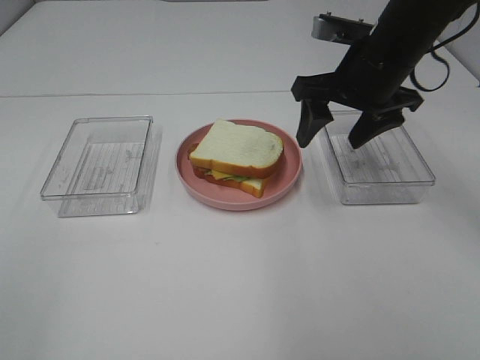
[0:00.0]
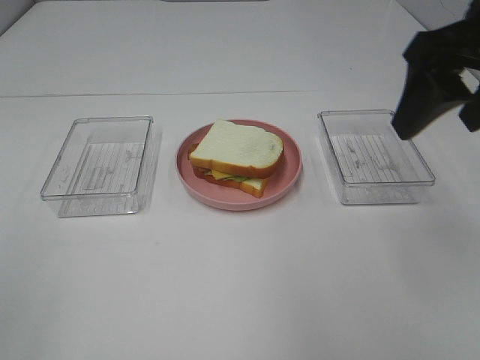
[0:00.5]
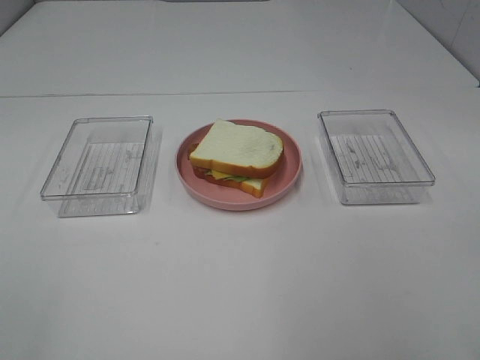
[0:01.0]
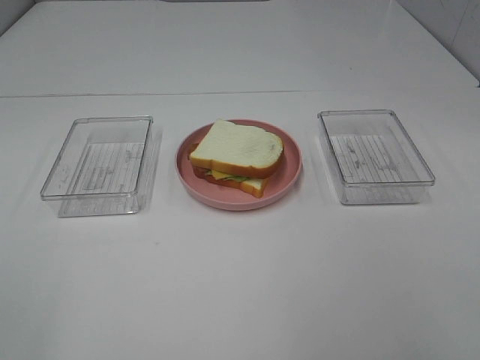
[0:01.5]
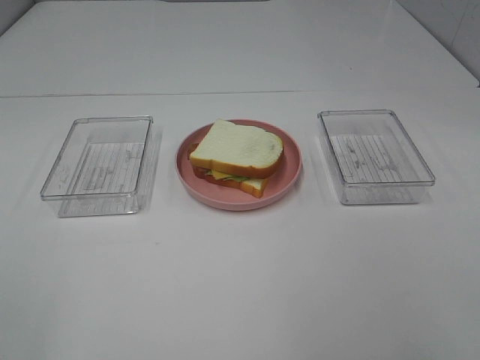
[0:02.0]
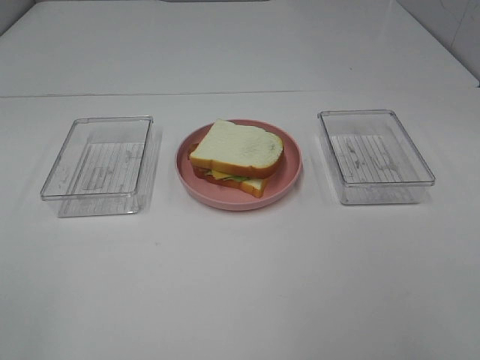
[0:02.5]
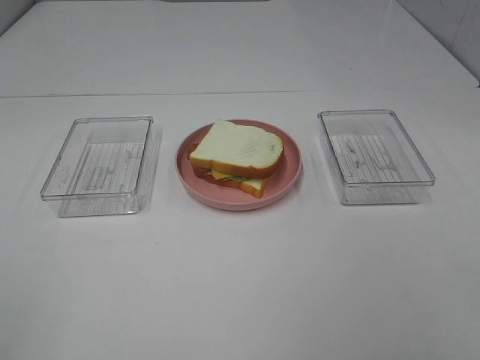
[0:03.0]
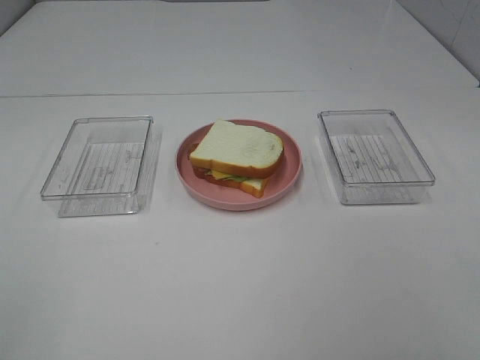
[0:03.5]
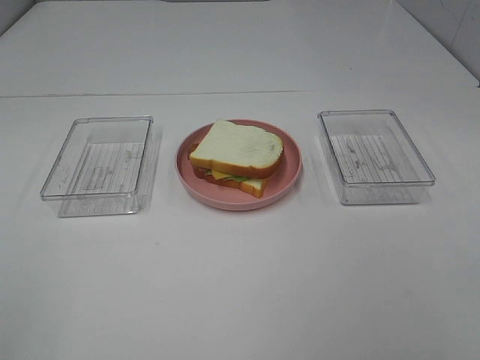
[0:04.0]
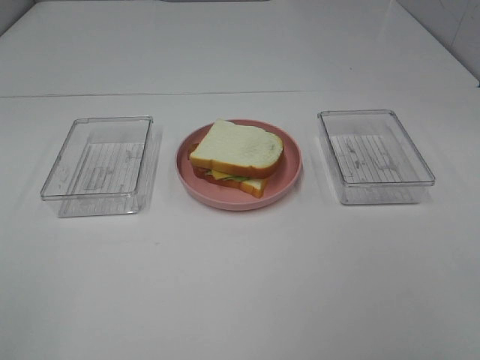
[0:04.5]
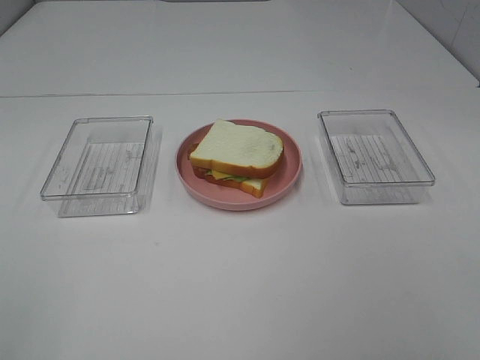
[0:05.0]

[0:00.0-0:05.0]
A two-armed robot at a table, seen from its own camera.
Task of the whole recording: Make sandwiches.
0:00.0 to 0:02.5: The right gripper moves backward, some 35 cm.

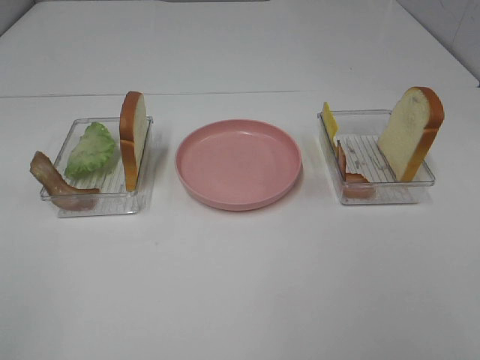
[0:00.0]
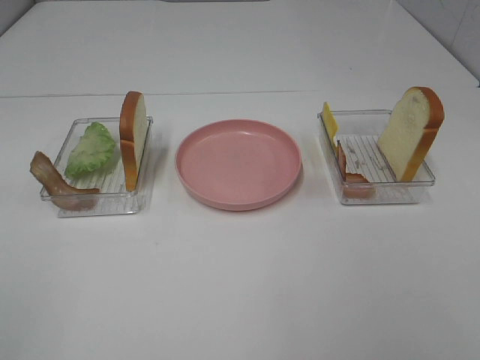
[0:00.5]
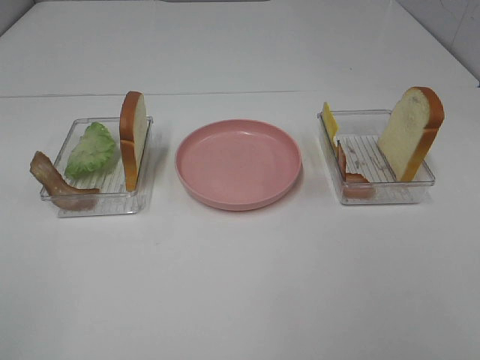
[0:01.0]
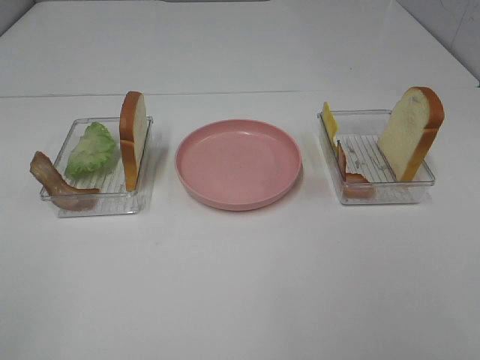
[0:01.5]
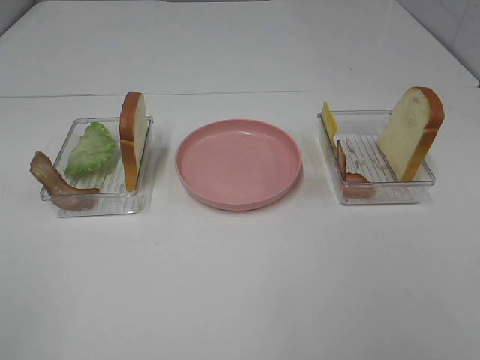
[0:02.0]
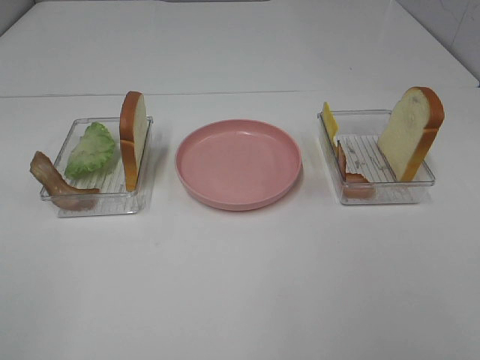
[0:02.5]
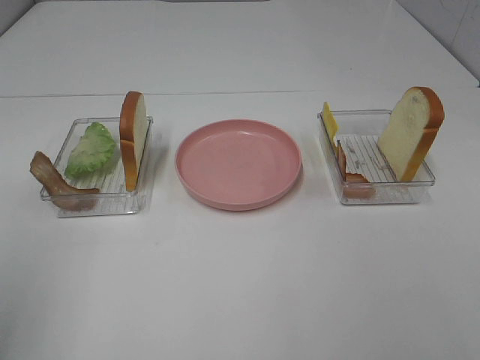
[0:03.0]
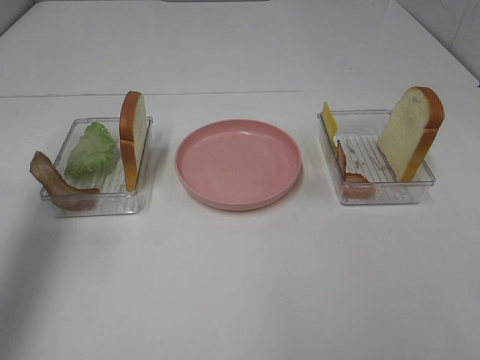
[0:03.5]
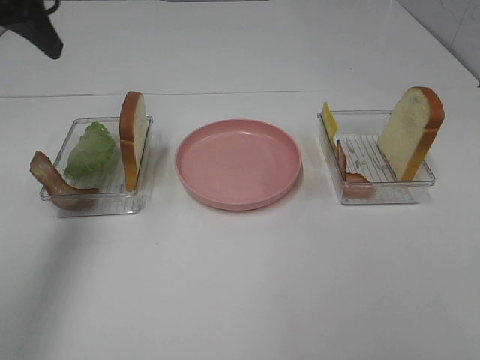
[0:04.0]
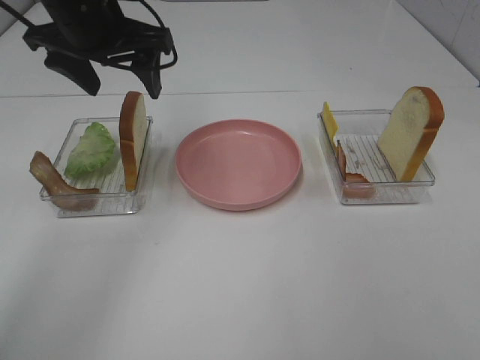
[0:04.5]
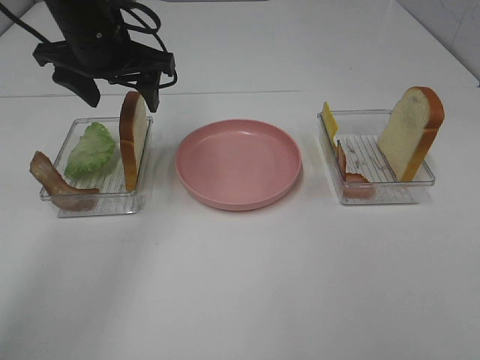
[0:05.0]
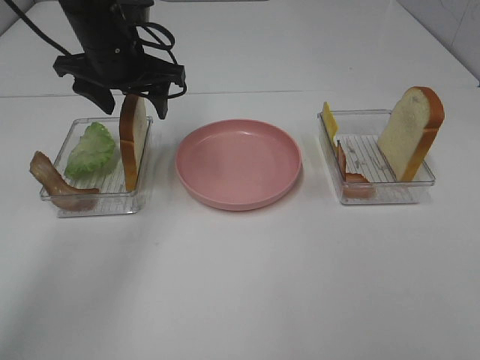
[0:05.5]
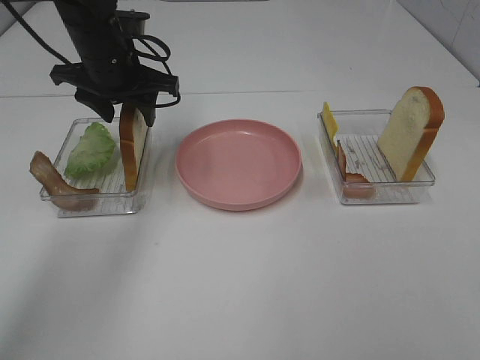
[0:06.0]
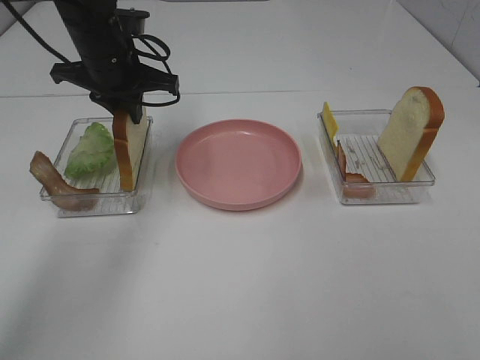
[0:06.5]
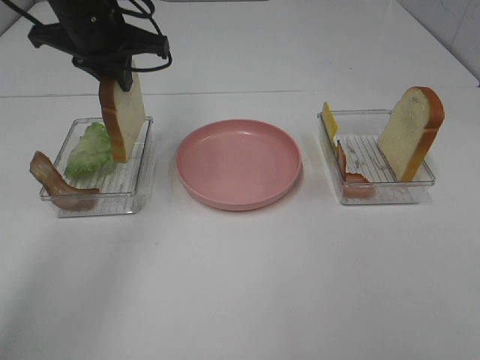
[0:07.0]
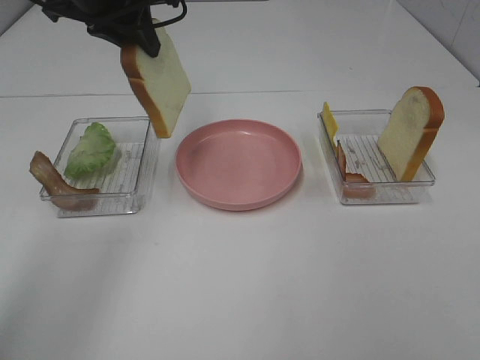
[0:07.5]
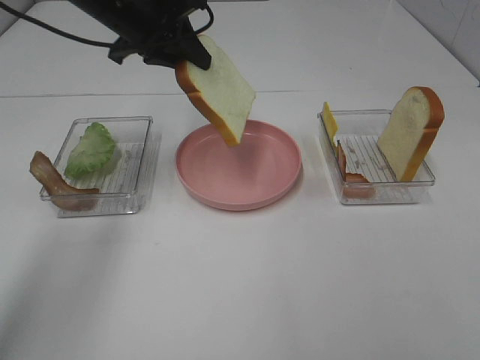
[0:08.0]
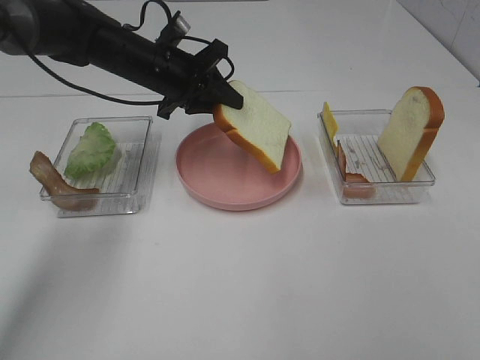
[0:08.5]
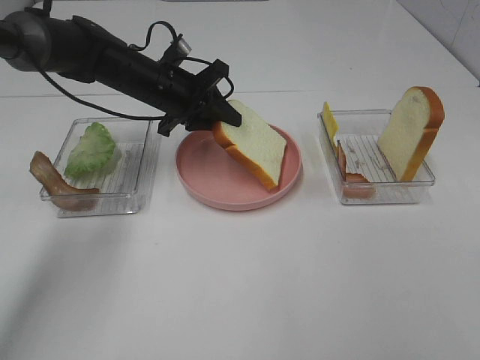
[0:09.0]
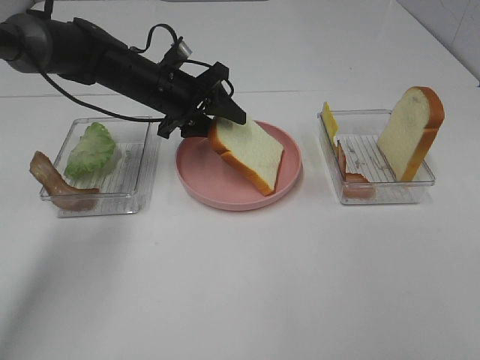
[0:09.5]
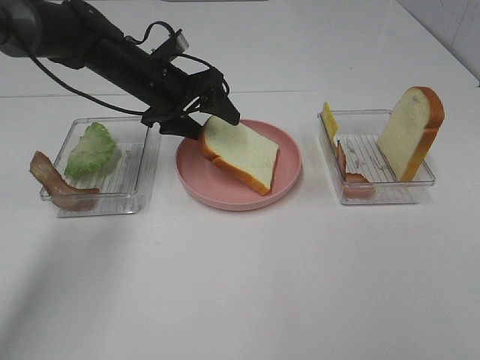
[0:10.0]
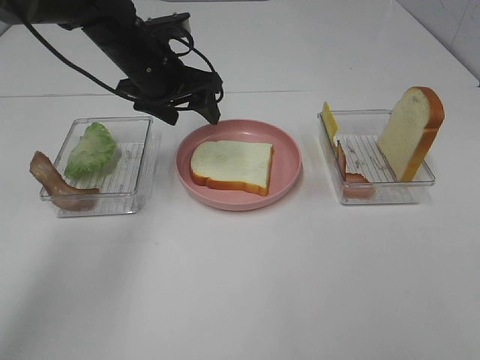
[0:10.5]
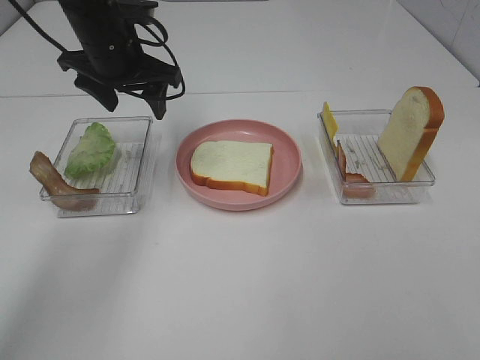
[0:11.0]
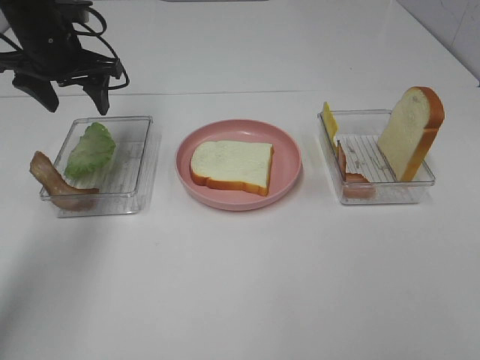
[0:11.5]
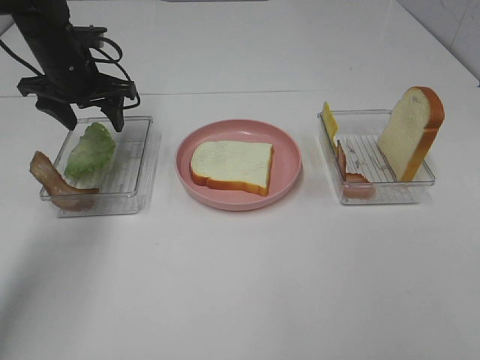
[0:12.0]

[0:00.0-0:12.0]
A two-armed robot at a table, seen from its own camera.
Task of the whole recording: Make sandwiches.
Step, 0:00.0 to 0:06.5: Left hand:grab the bread slice.
Step, 0:07.0 to 0:10.5: Left hand:place the bread slice on the plate.
0:00.0 to 0:02.0: Neither gripper changes place.
0:02.0 to 0:04.0: The left gripper is displaced forward by roughly 35 cm.
0:04.0 to 0:06.0: The left gripper moves downward, forward and to the right, about 20 cm.
0:06.0 to 0:08.0: The left gripper closes up.
0:08.0 to 0:10.0: The left gripper goes about 10 cm downward, and opens its fingers.
0:10.0 to 0:12.0: The left gripper is displaced to the left by approximately 10 cm.

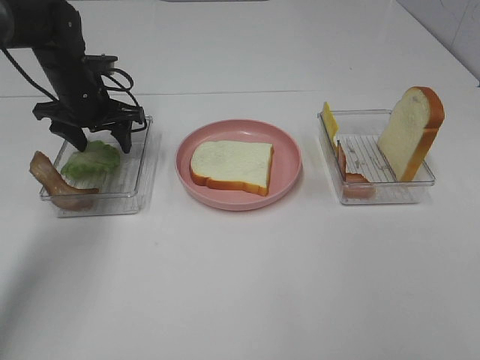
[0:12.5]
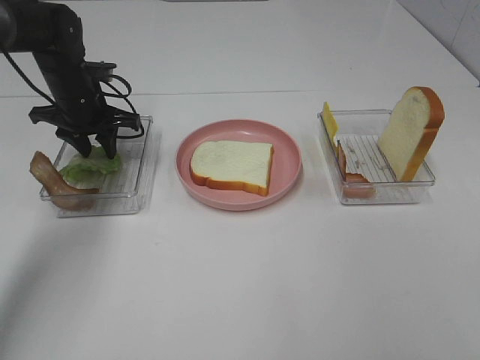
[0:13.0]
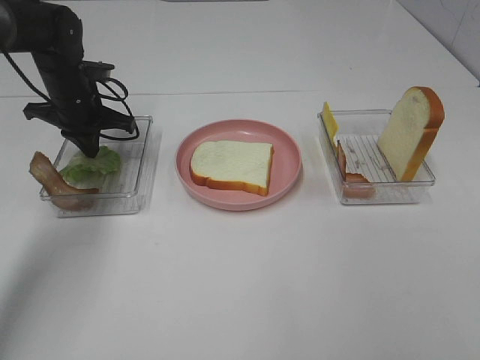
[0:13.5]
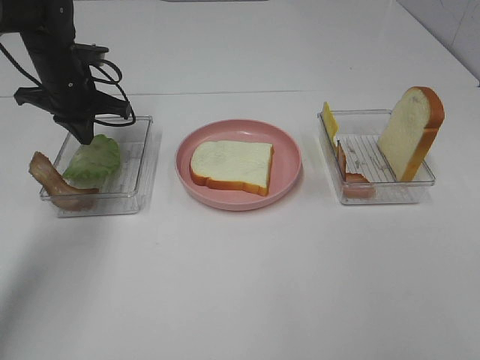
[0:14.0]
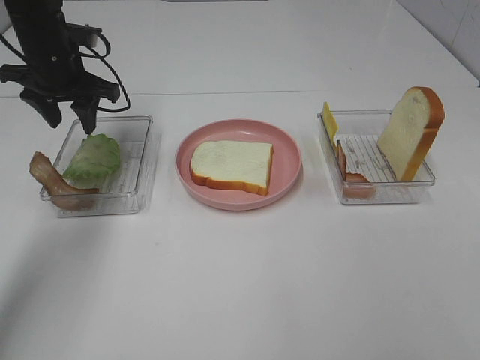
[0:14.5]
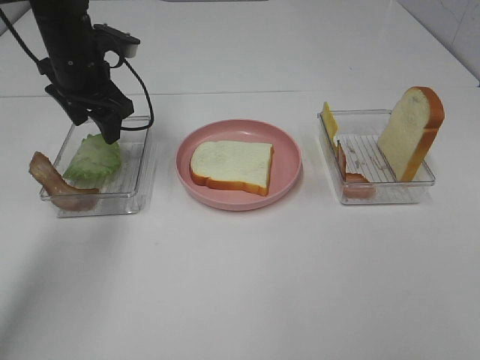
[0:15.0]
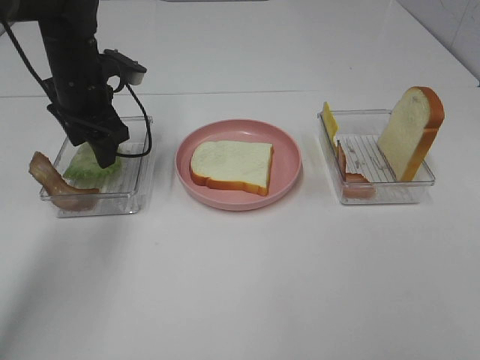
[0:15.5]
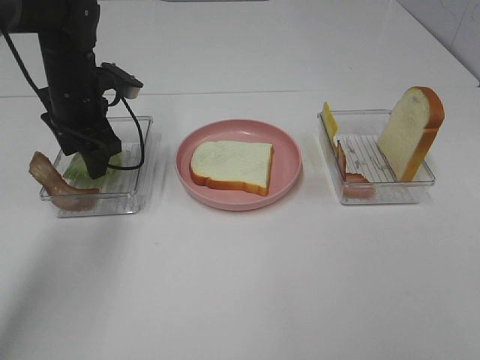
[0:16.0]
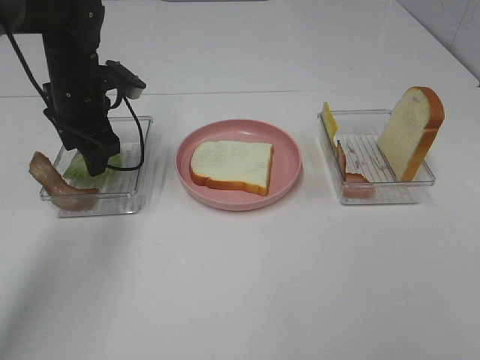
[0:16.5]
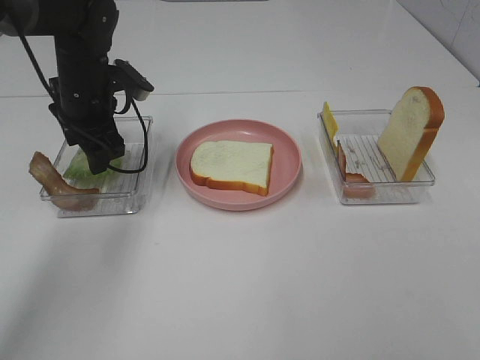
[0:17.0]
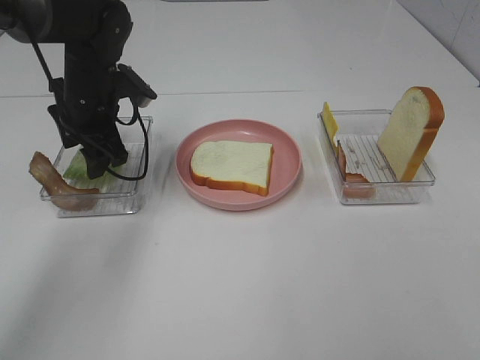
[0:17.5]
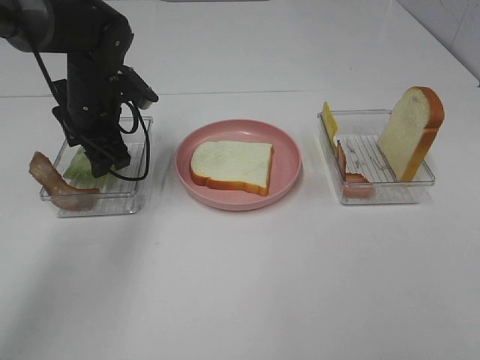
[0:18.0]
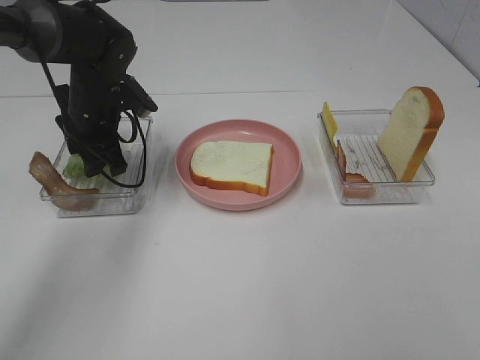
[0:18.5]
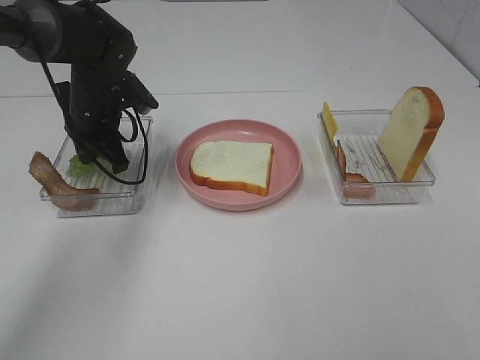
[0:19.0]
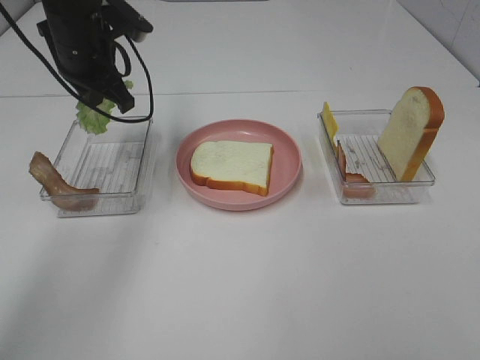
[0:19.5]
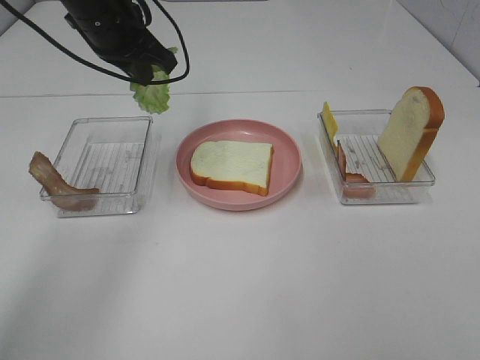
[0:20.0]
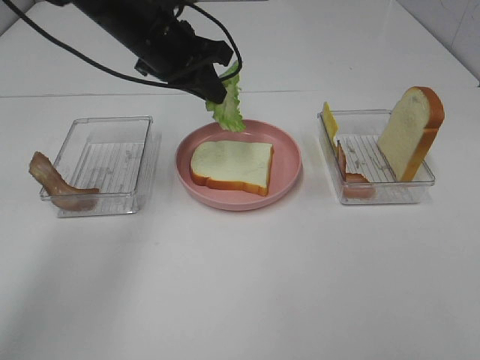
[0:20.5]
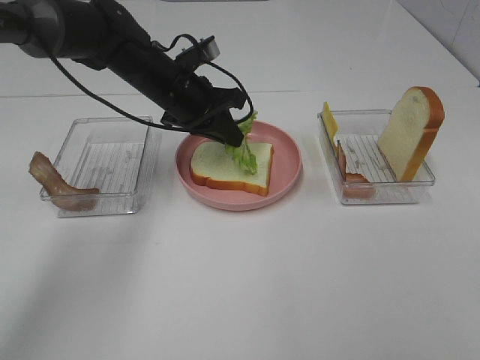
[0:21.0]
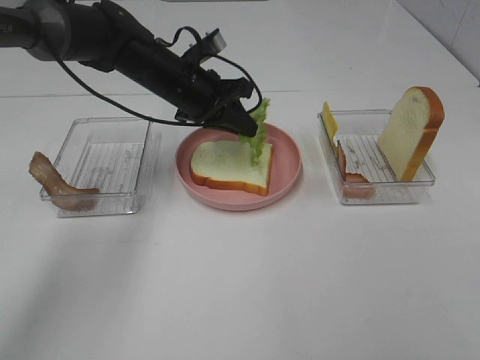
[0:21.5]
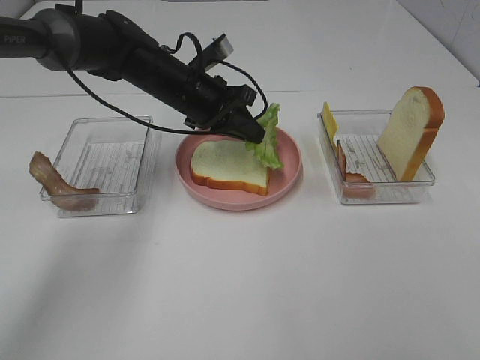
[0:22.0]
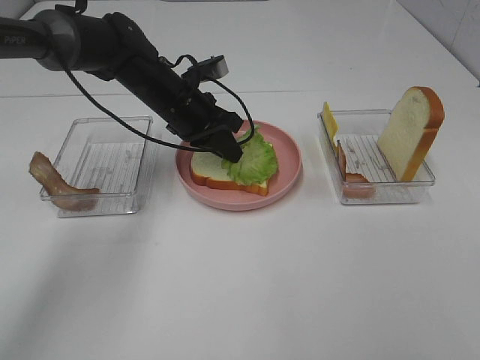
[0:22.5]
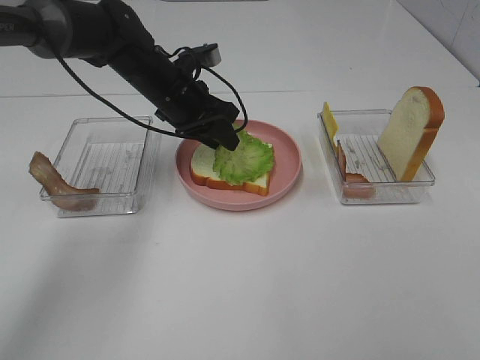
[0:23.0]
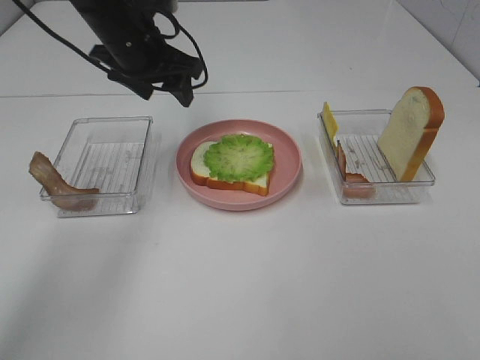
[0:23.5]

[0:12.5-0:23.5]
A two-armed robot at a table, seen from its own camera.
Task of the whole recording: Make sandwiches.
Step, 0:12.5 to 0:19.0: Left hand:grab the lettuce slice.
Step, 0:19.5 to 0:23.0: Left hand:place the lettuce slice on the bread slice.
0:12.5 to 0:14.5: The left gripper is displaced upward by approximately 5 cm, and closes, then reopens.
0:14.5 to 0:16.0: The left gripper changes place by some 5 cm.
0:16.0 to 0:18.0: The grippers make only small movements.
0:18.0 to 0:20.0: The left gripper travels upward by roughly 10 cm, and closes its fingers.
0:20.0 to 0:21.5: The left gripper heads downward and to the right, covering some 10 cm.
0:21.5 to 0:23.5: The left gripper heads upward and to the left, covering about 10 cm, and opens its fingers.
